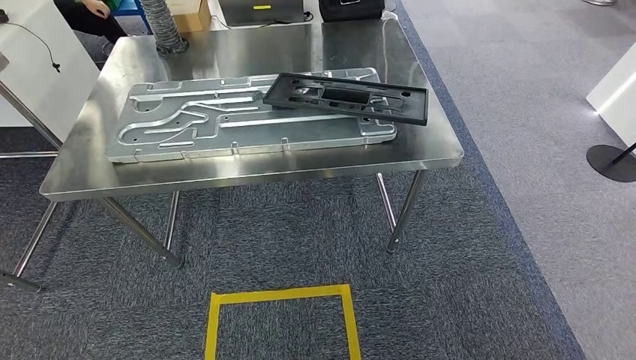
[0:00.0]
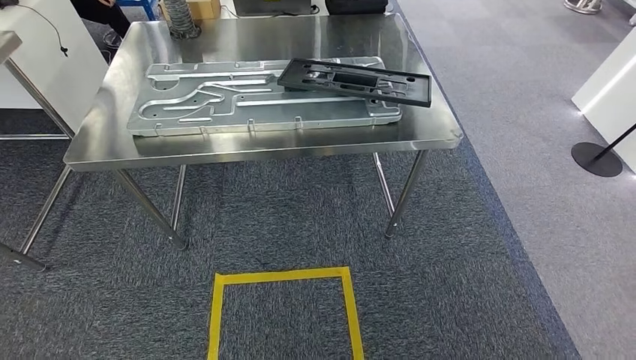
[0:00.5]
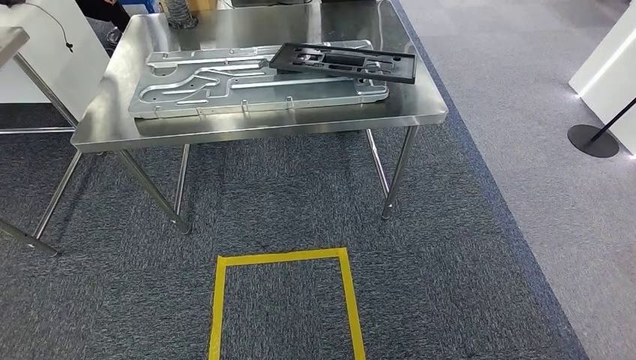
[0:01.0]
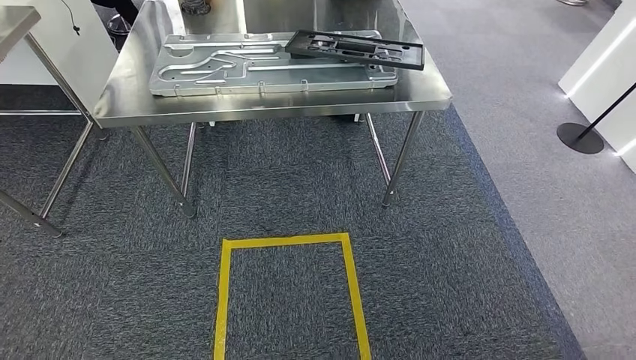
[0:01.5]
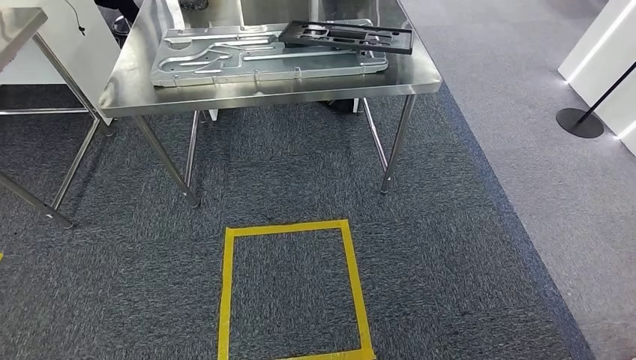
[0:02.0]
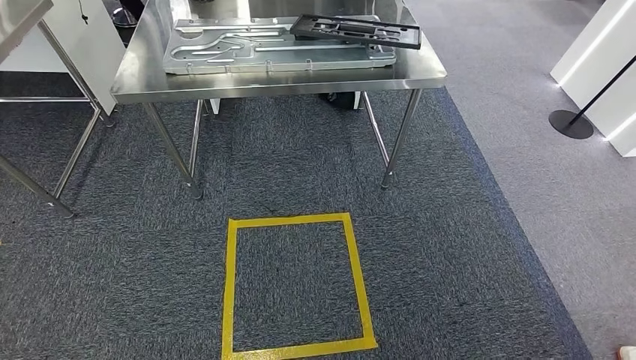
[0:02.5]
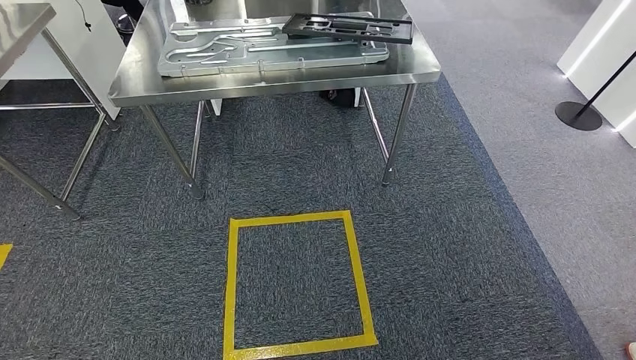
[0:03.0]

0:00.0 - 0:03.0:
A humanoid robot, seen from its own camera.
Step, 0:00.0 - 0:03.0: Move to the initial position of the shelf.
